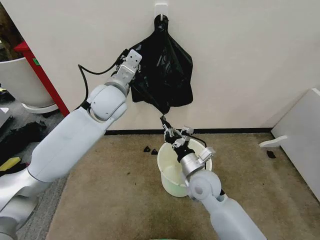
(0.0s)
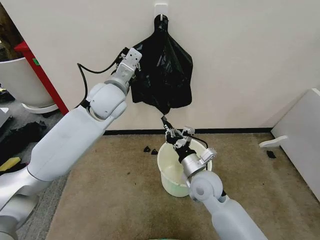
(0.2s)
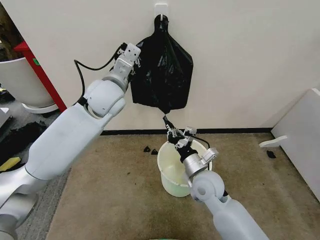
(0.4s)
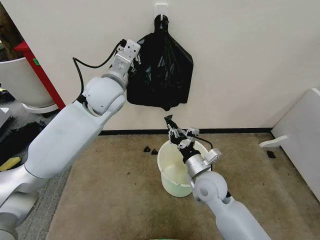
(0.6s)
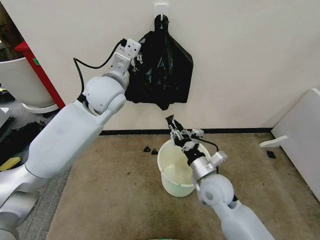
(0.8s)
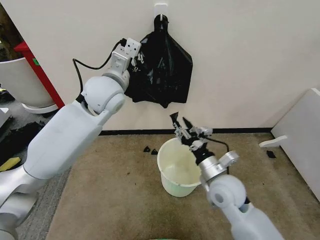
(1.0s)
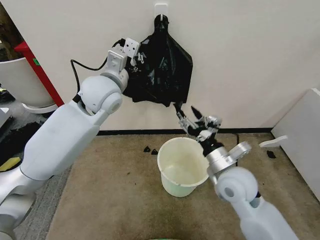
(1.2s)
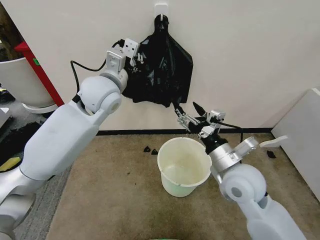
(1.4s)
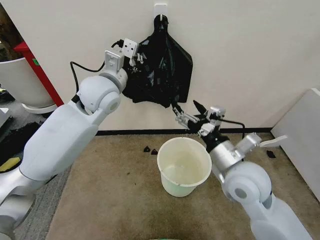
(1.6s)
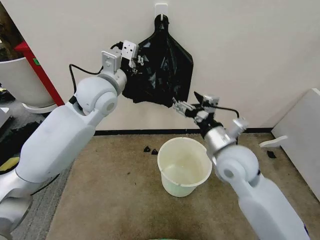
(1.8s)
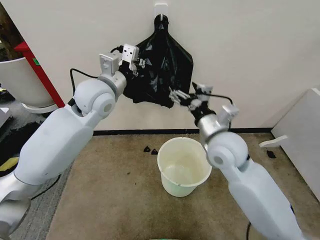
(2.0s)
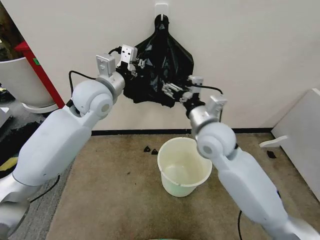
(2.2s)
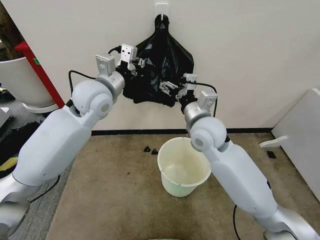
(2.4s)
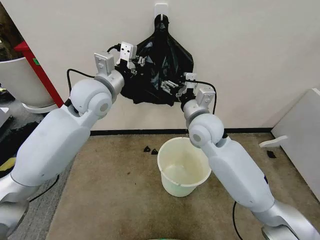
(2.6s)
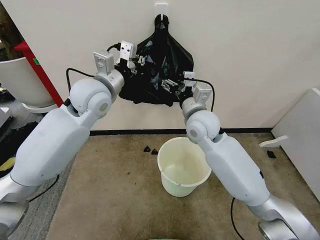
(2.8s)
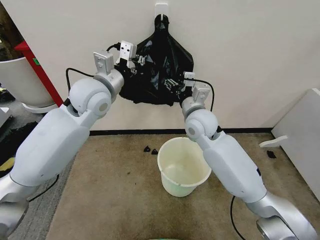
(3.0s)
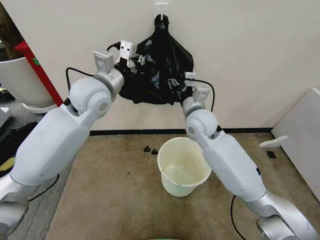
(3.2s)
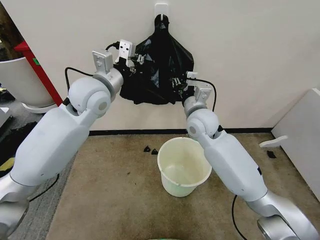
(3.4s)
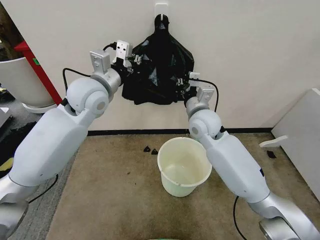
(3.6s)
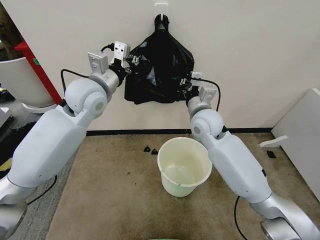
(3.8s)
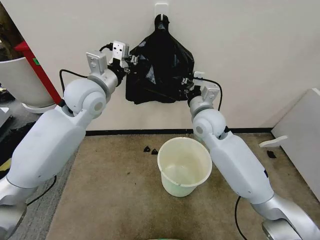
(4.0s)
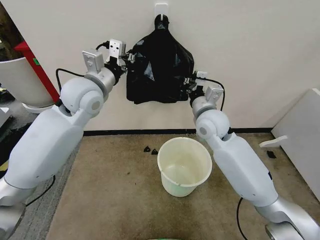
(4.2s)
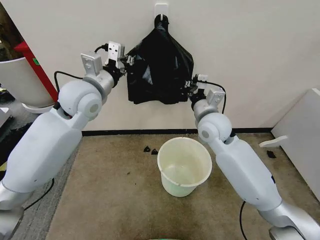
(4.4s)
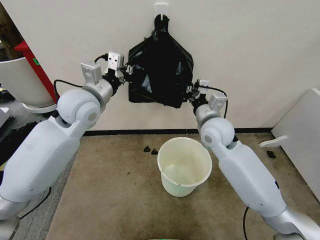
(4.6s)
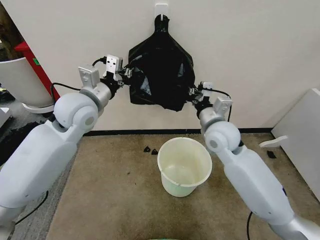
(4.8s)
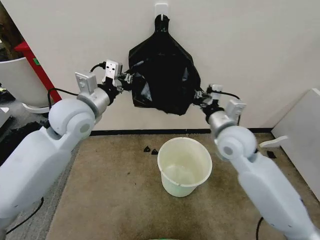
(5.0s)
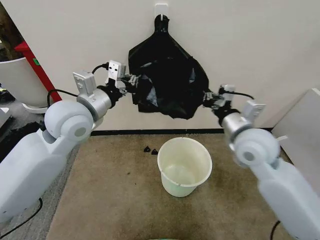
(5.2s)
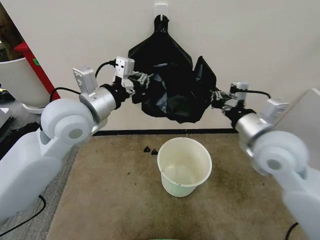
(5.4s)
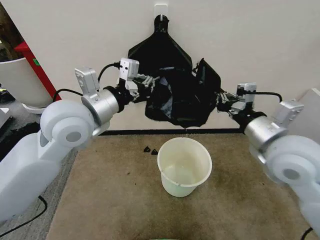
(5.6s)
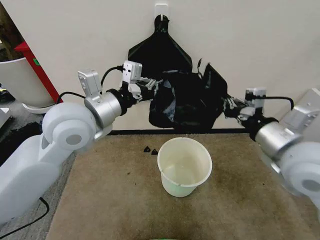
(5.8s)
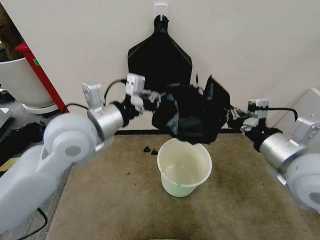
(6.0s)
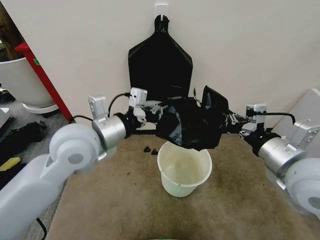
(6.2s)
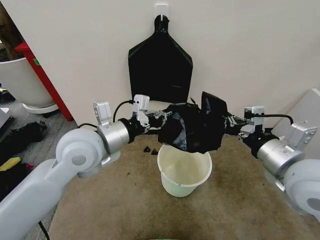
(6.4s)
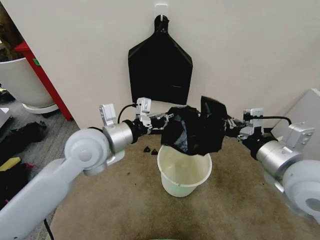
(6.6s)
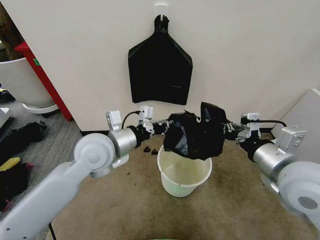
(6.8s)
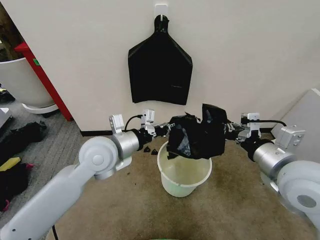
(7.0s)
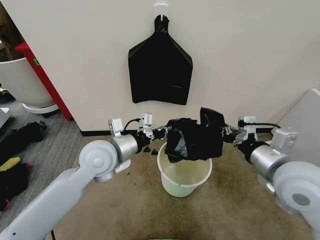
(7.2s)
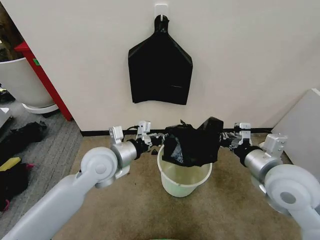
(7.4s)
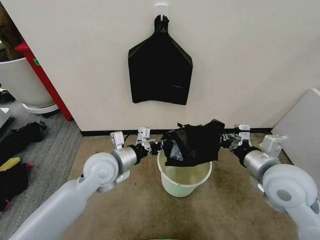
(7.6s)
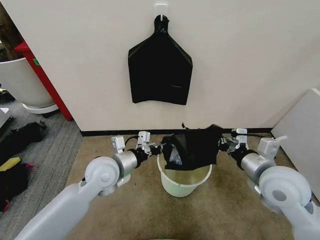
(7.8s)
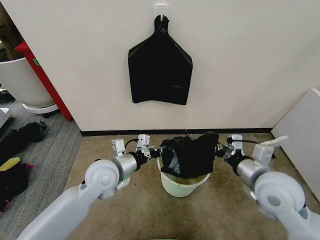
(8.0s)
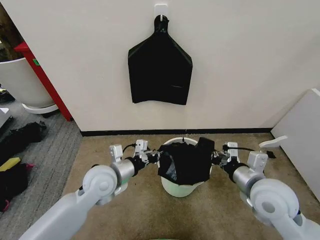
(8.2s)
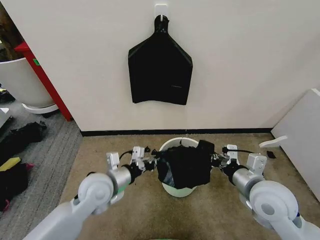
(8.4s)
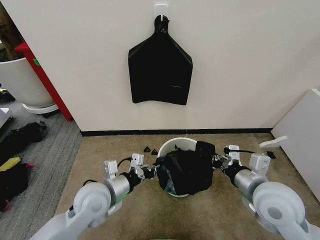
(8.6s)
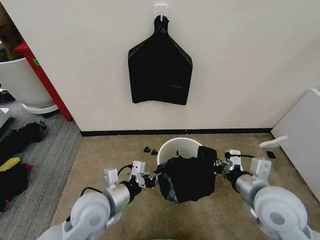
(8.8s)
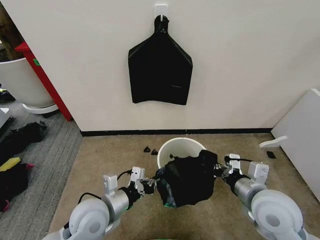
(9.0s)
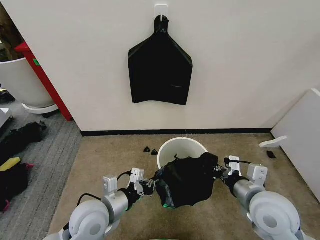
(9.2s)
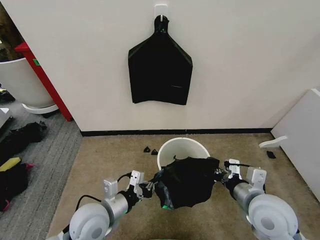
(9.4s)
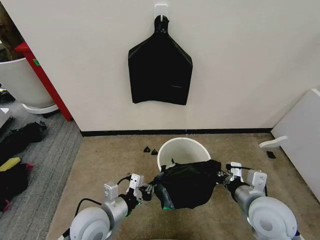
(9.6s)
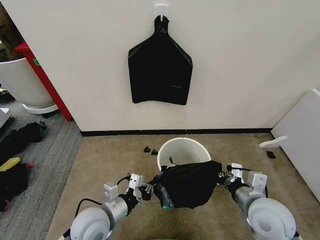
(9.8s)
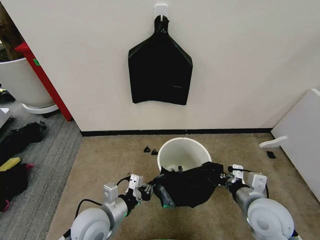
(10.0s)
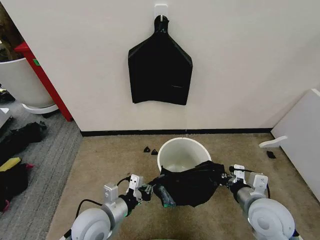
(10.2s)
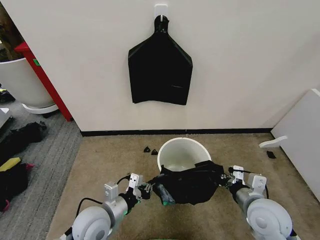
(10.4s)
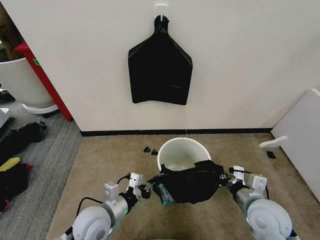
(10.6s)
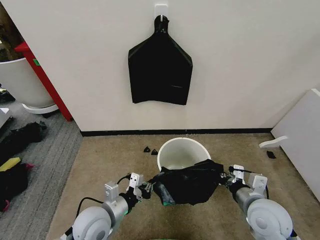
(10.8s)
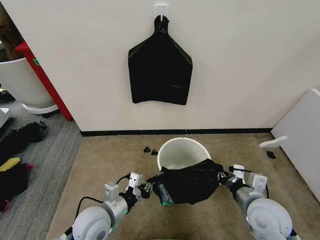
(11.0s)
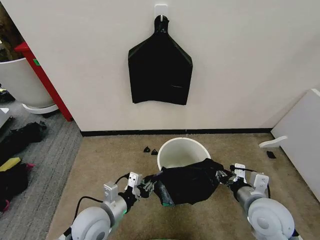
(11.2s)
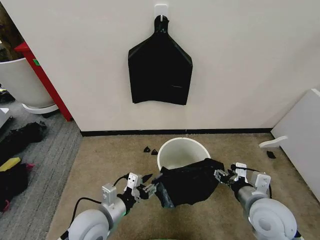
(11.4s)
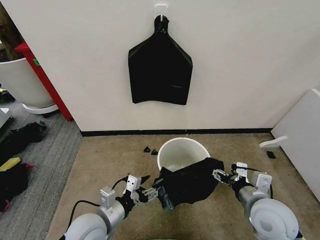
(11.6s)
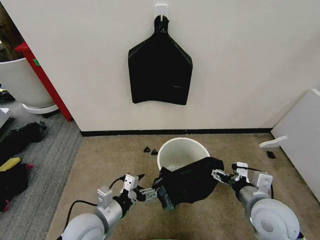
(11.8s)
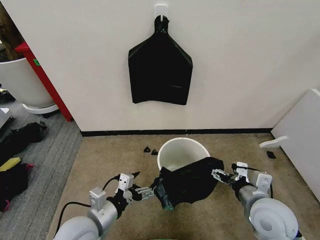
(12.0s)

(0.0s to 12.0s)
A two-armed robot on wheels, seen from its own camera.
Task of the whole recording: Place the garbage bag over the trash bin.
0.0s - 1.6s: The right gripper moves upward and to the right, approximately 15 cm, and opens its fingers.
1.6s - 3.0s: The right gripper is displaced forward and to the left by some 20 cm.
3.0s - 4.4s: The right gripper closes up.
4.4s - 6.0s: The left gripper shifts some 10 cm backward; the right gripper goes approximately 25 cm backward and to the right.
6.0s - 7.6s: The right gripper moves downward, roughly 5 cm. Meanwhile the left gripper is displaced downward by approximately 15 cm.
7.6s - 9.0s: The left gripper is displaced backward and downward by approximately 15 cm, while the right gripper is displaced downward by some 5 cm.
9.0s - 10.4s: The right gripper travels downward by roughly 5 cm.
10.4s - 12.0s: The right gripper opens its fingers; the left gripper changes place by roughly 5 cm, and opens up.

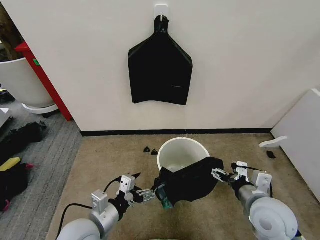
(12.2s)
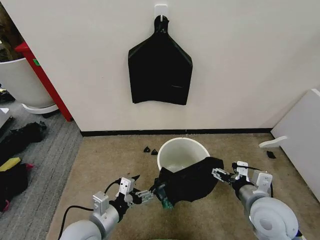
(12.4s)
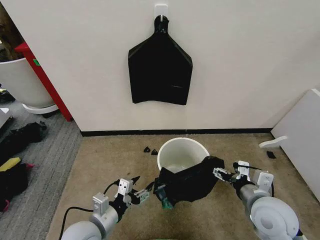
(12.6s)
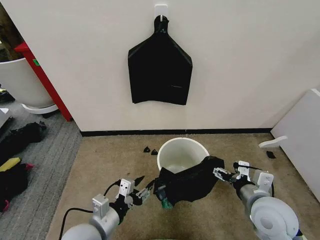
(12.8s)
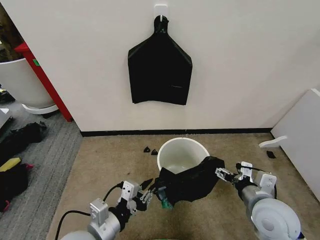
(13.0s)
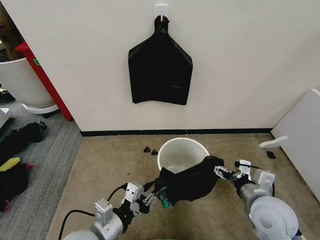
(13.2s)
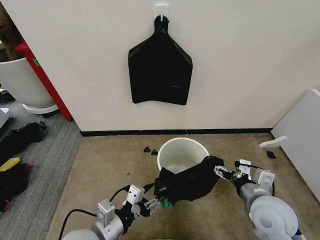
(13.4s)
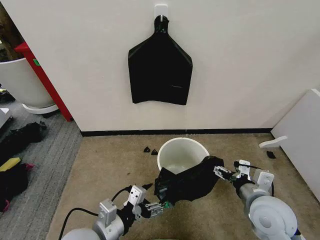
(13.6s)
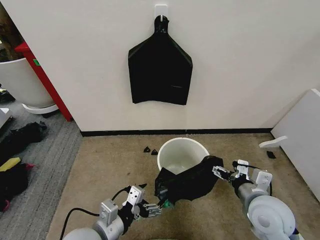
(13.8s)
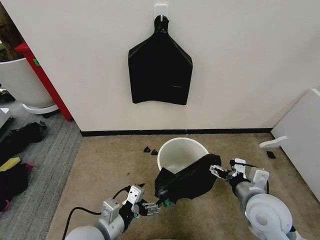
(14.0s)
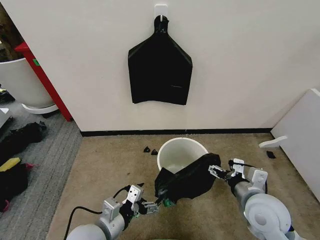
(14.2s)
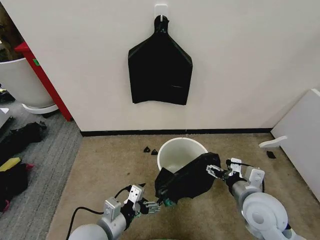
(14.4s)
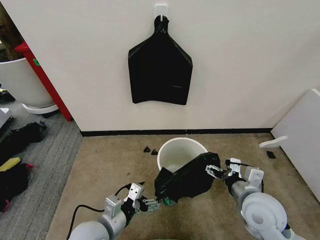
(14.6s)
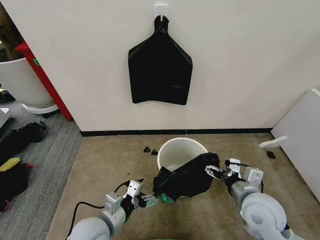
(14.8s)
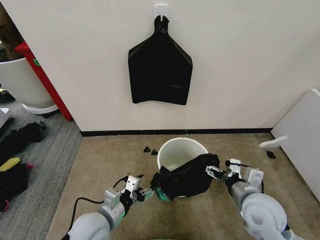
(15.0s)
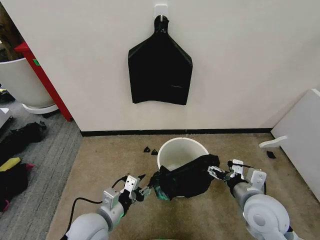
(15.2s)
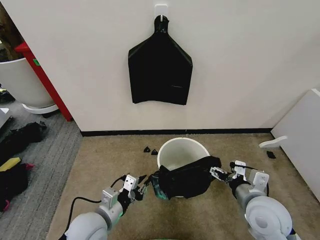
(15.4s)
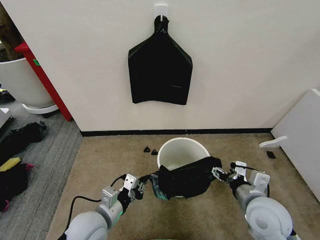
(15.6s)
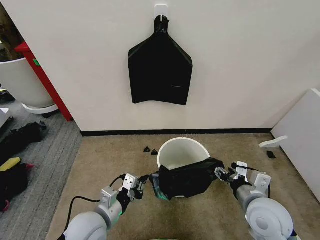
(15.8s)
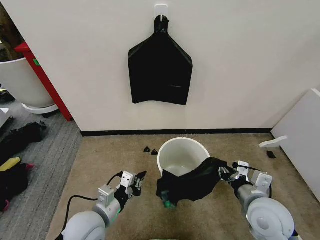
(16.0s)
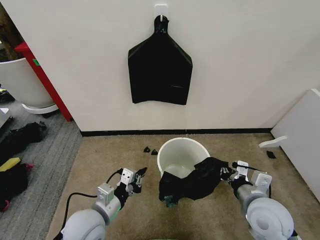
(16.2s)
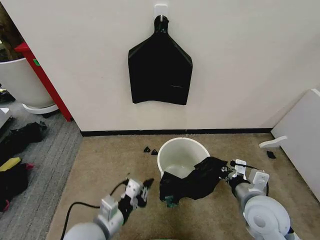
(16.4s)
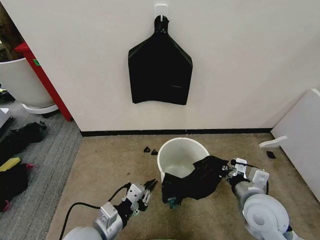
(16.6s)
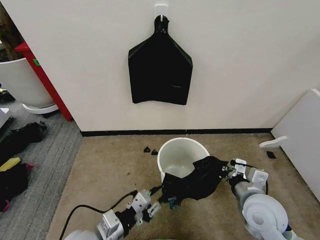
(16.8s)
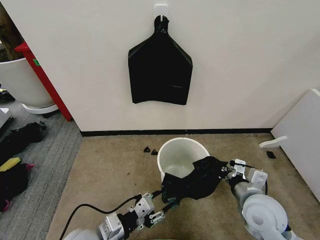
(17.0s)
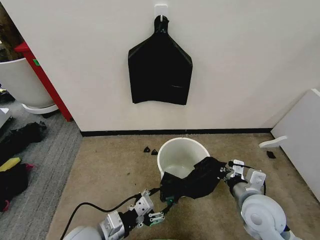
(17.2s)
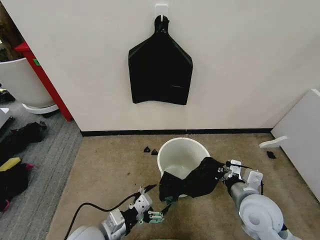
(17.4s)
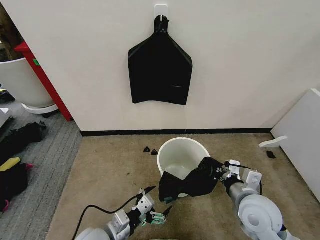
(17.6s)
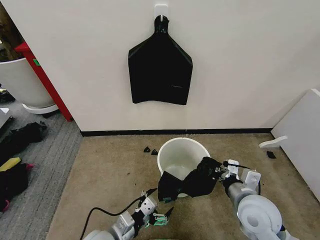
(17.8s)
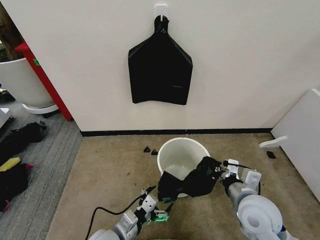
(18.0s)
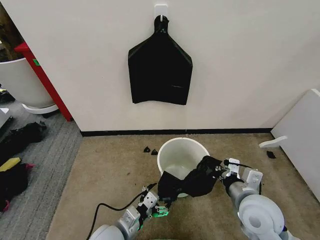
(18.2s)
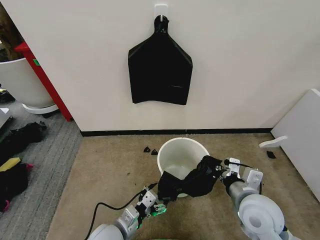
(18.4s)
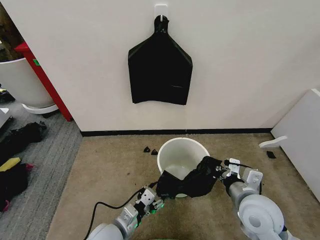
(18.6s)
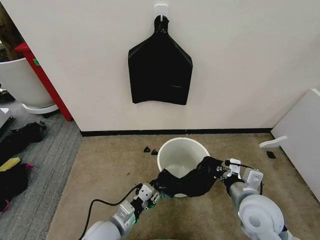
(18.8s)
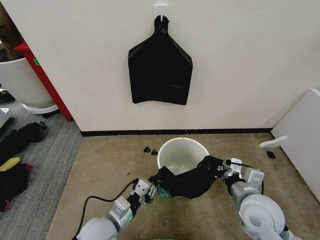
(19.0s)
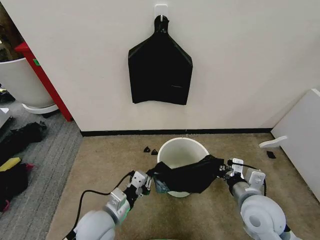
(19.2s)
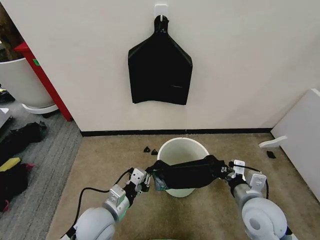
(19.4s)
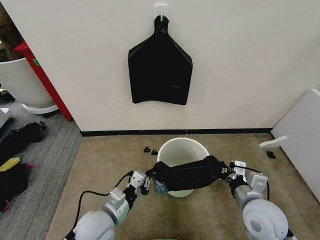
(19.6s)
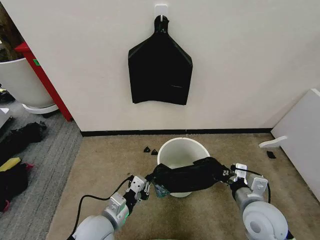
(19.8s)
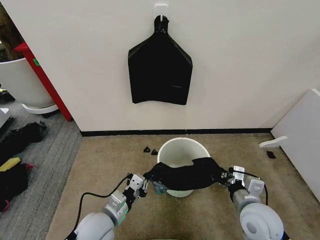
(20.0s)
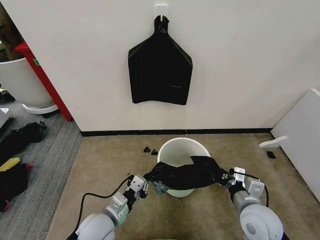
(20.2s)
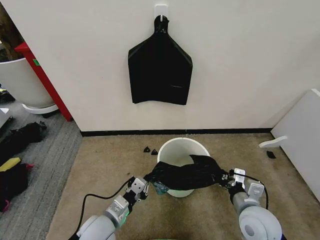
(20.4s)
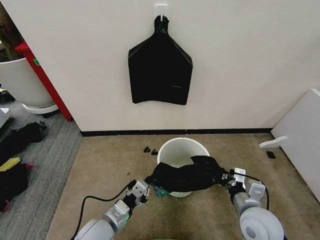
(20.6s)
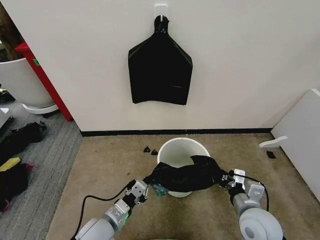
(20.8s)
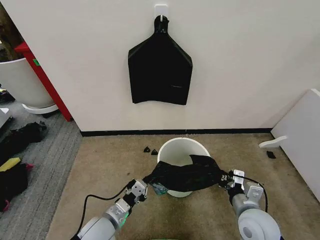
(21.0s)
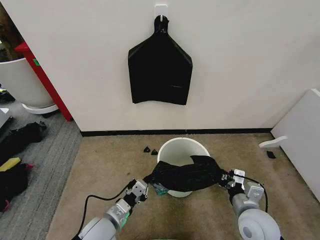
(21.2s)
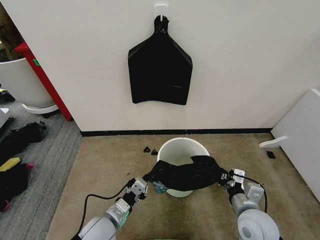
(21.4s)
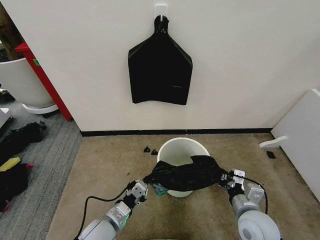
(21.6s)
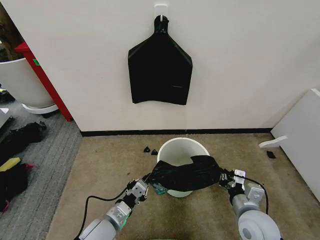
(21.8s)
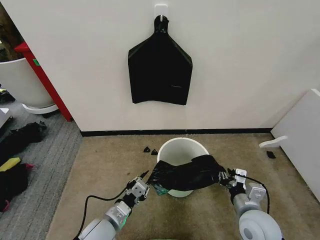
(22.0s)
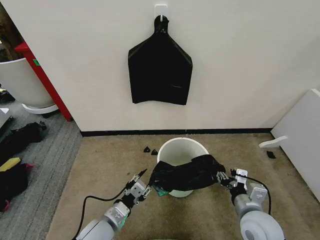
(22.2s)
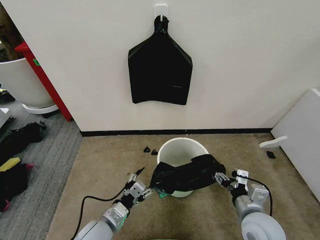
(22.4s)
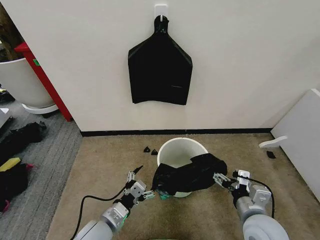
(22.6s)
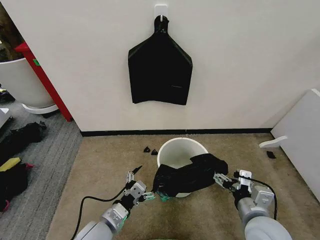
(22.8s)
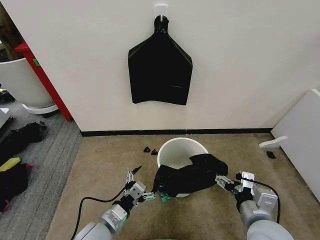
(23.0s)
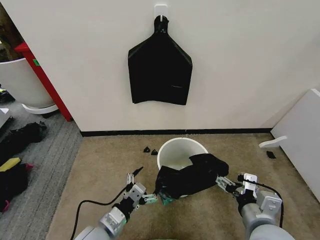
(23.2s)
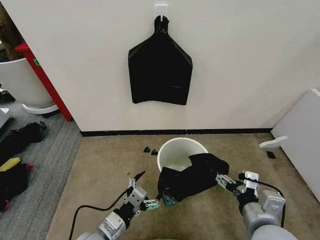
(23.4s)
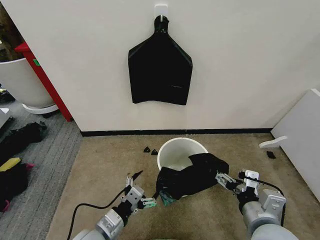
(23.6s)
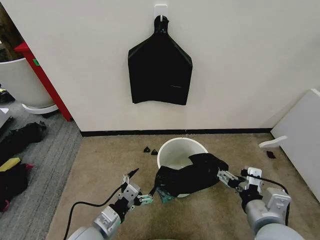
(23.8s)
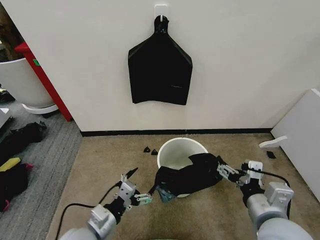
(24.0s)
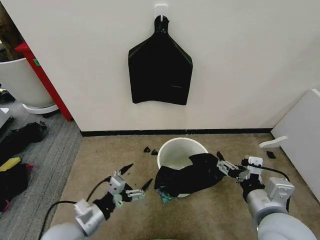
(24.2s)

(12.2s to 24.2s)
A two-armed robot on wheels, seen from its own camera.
Task of the whole recording: Place the garbage bag over the trash bin.
12.2s - 13.8s: The left gripper closes, then opens again.
13.8s - 15.2s: The left gripper shifts by about 5 cm, and closes.
15.2s - 16.6s: The left gripper closes up; the right gripper closes up.
16.6s - 18.2s: The left gripper travels downward by approximately 5 cm, and opens up.
18.2s - 19.8s: The left gripper shifts by approximately 5 cm, and closes.
19.8s - 21.2s: The grippers move only a little.
21.2s - 22.6s: The right gripper opens, while the left gripper opens its fingers.
22.6s - 24.2s: The right gripper travels upward by some 10 cm. Meanwhile the left gripper travels to the left and upward by some 10 cm.
